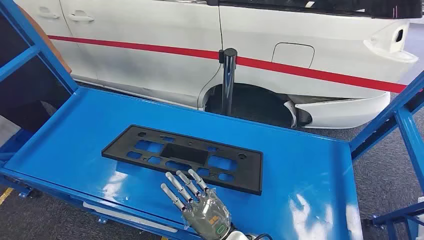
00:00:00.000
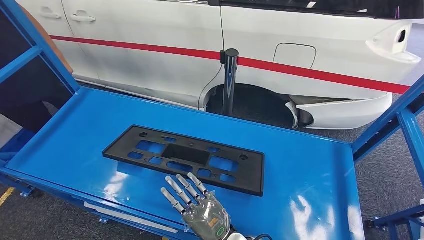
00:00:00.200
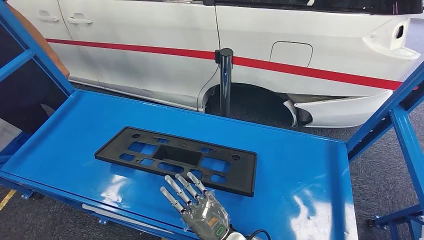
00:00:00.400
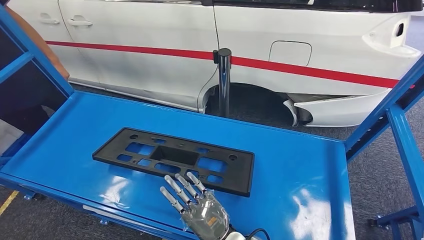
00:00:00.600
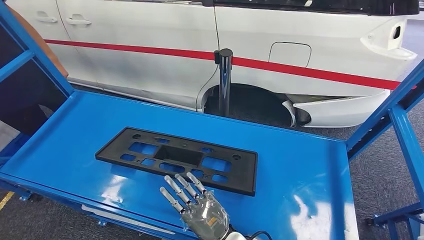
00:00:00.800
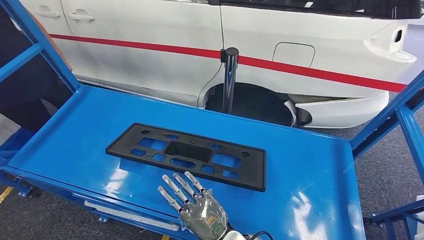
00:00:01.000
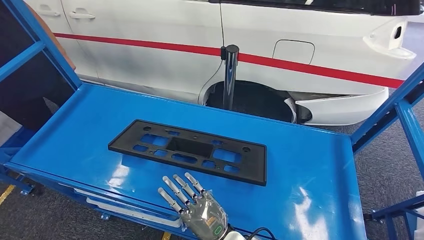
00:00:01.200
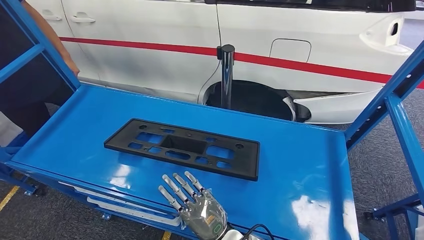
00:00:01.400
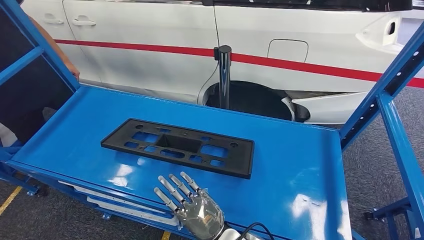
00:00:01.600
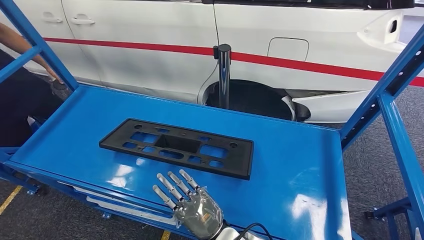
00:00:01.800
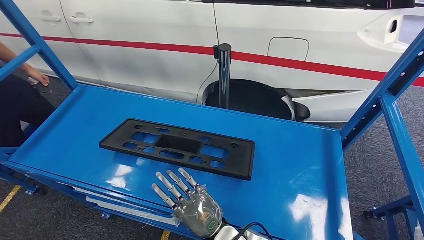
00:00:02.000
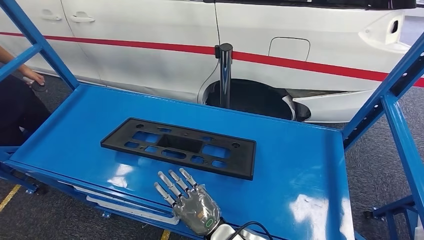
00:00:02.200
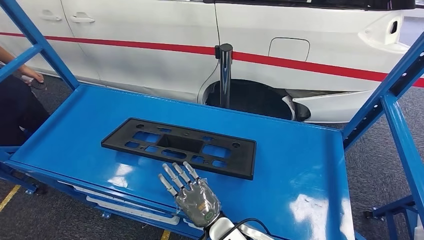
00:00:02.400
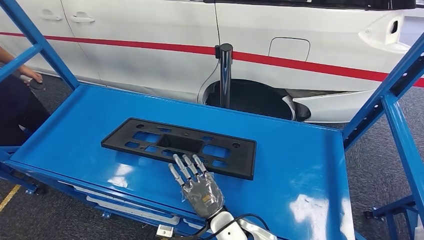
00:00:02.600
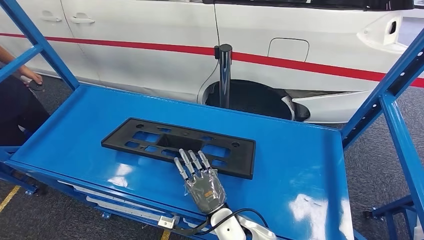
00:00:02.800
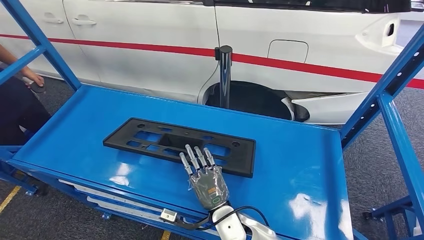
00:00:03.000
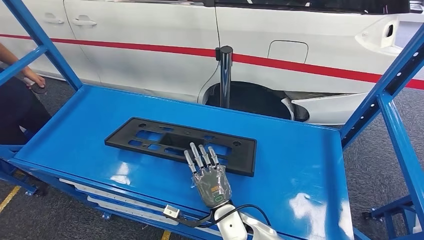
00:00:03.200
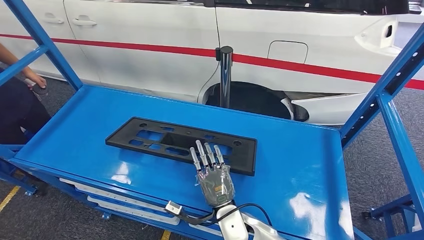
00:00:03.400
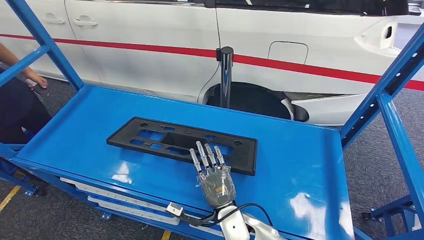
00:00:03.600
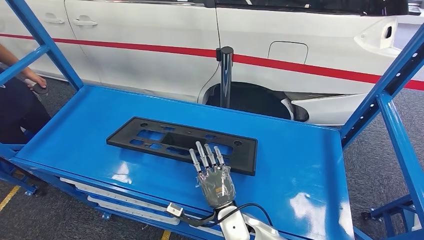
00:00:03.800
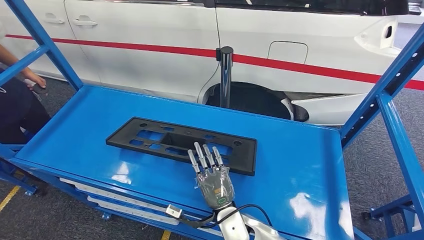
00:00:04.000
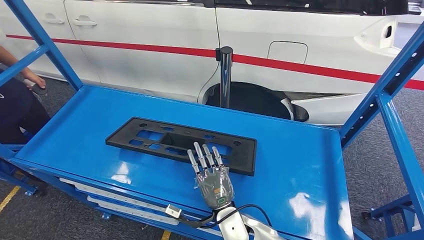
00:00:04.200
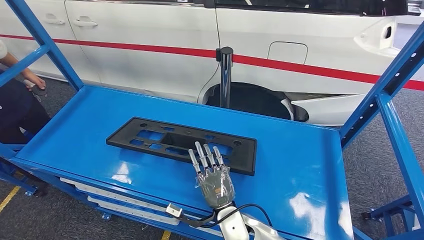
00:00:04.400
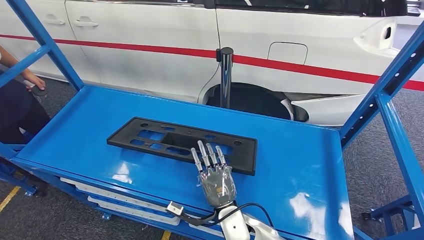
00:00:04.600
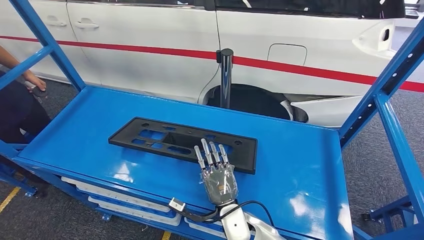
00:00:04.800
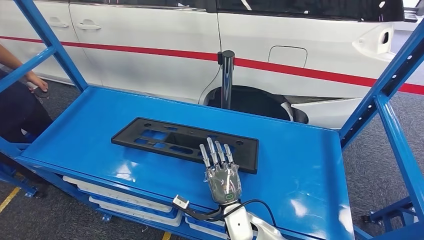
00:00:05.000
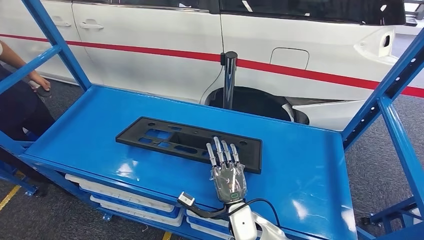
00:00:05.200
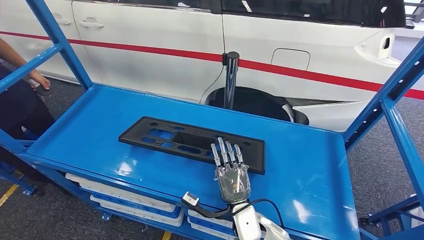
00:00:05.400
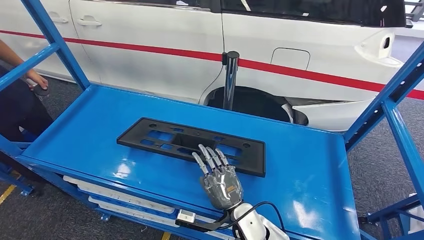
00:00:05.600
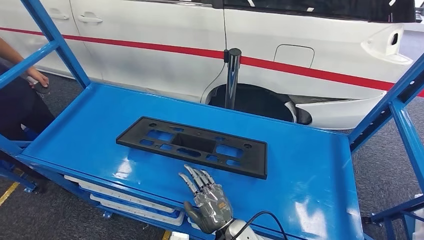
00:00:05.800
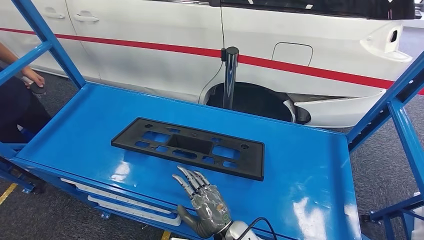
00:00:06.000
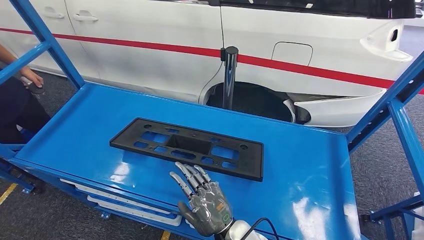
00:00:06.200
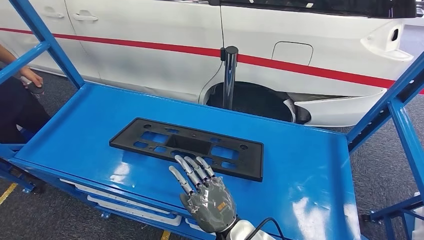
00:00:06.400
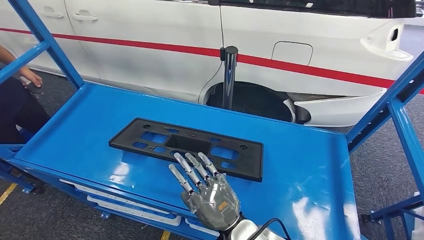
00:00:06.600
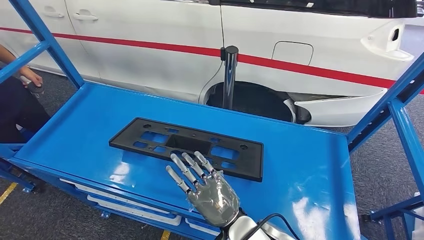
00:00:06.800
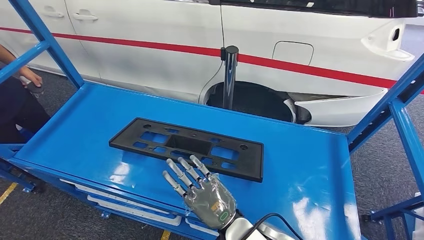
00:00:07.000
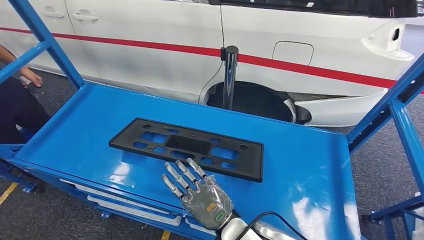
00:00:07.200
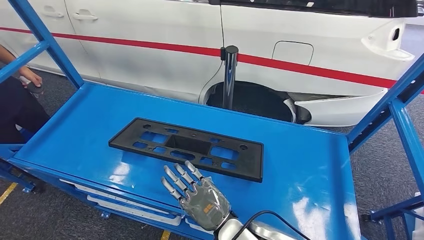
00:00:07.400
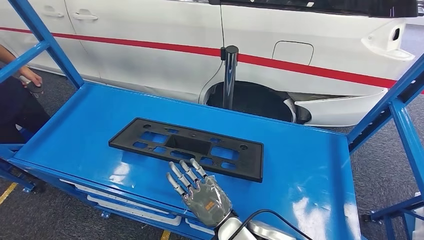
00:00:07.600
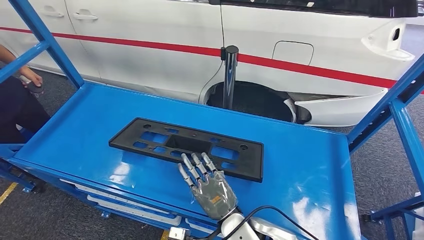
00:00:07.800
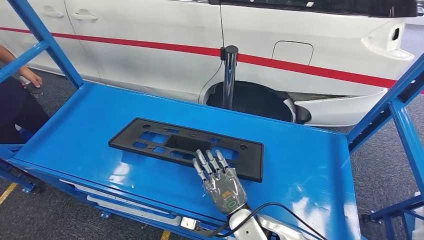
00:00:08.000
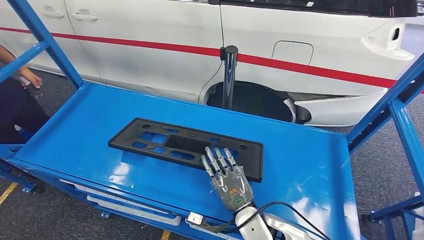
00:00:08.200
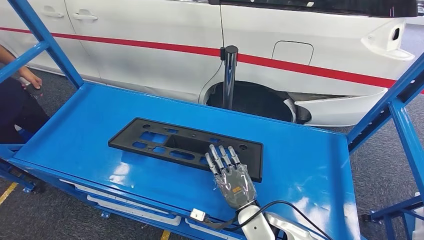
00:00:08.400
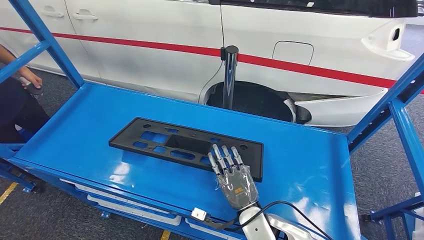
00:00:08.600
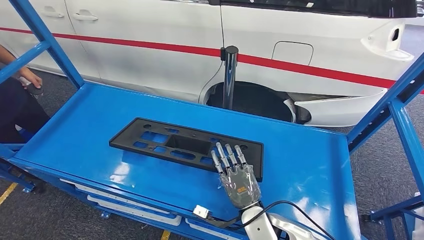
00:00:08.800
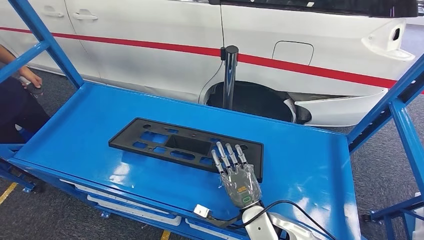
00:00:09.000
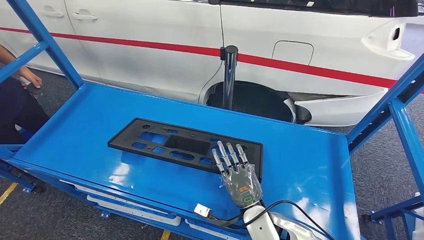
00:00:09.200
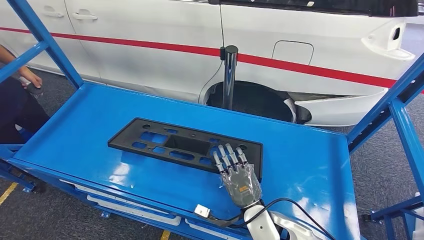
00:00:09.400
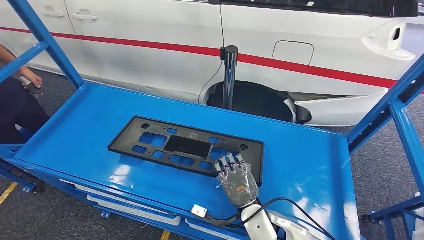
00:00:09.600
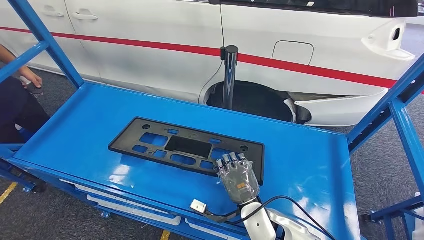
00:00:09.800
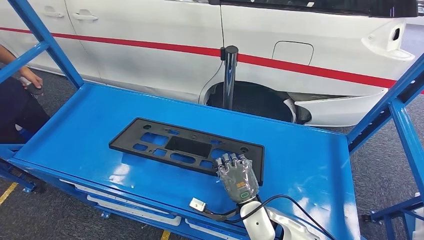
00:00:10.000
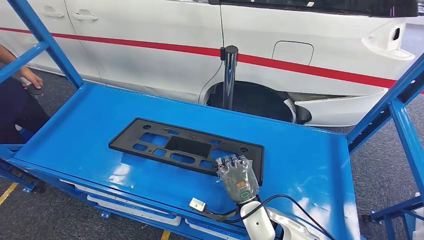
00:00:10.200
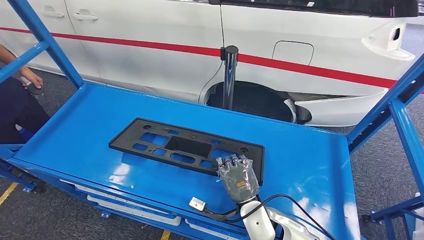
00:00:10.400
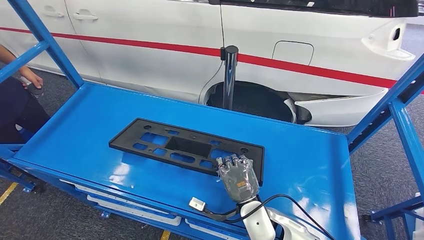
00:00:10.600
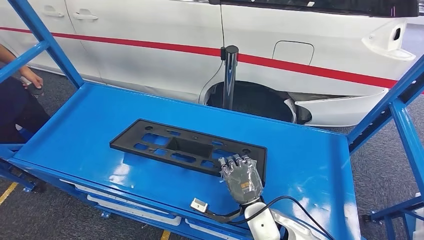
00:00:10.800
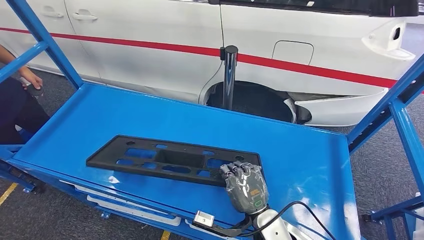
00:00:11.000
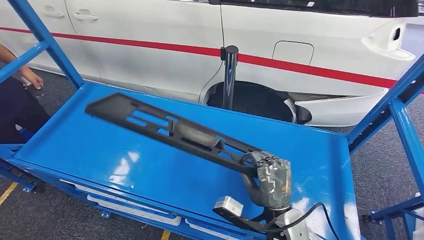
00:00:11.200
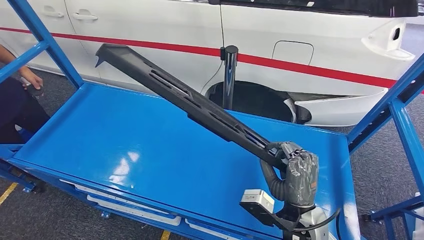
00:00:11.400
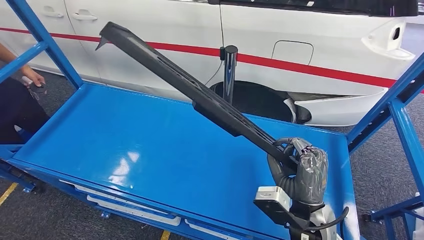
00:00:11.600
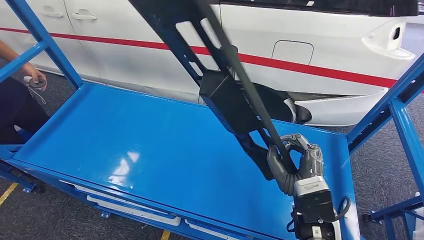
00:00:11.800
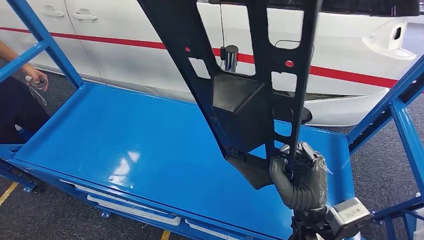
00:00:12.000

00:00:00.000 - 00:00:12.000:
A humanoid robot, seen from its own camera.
00:00:01.600 - 00:00:03.000: The right hand heads forward, covering roughly 5 cm.
00:00:03.000 - 00:00:04.400: The hands move only a little.
00:00:07.600 - 00:00:09.000: The right hand shifts by some 5 cm.
00:00:09.000 - 00:00:10.400: The hands move only a little.

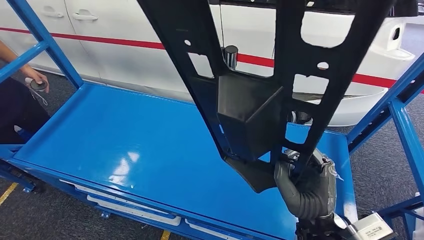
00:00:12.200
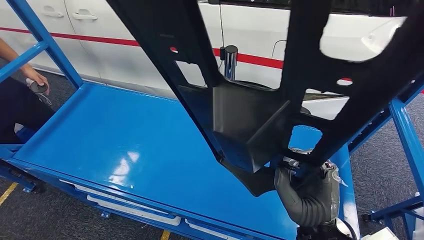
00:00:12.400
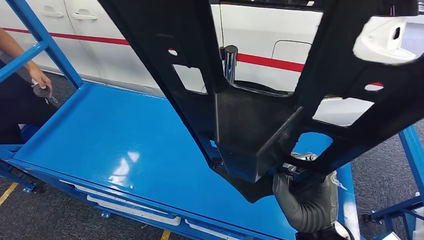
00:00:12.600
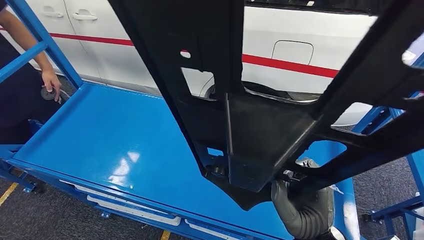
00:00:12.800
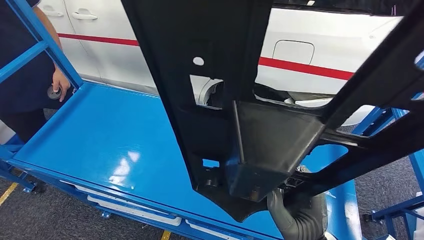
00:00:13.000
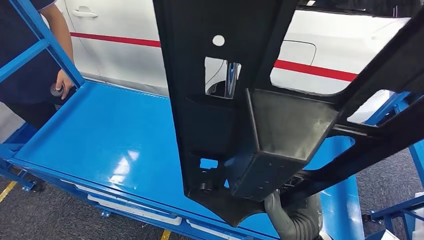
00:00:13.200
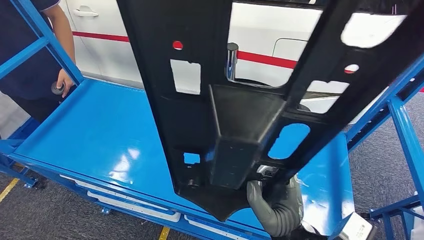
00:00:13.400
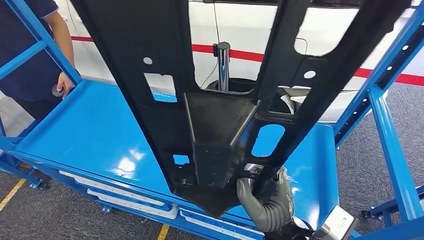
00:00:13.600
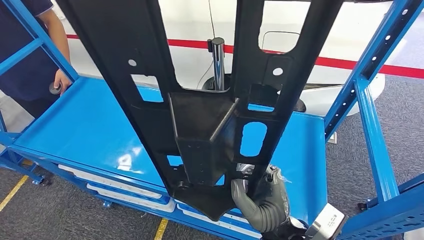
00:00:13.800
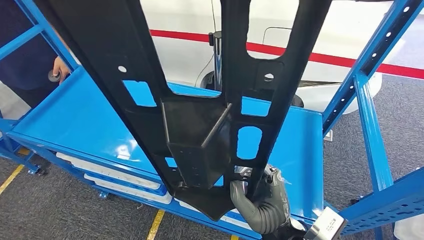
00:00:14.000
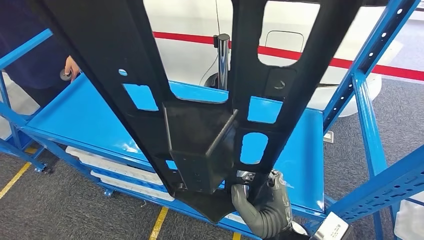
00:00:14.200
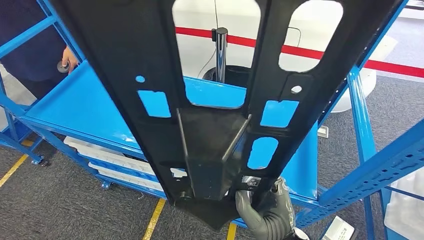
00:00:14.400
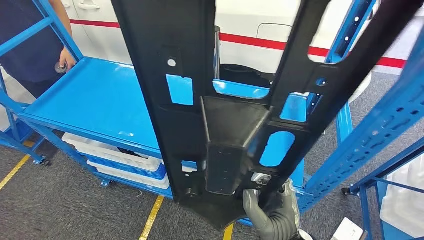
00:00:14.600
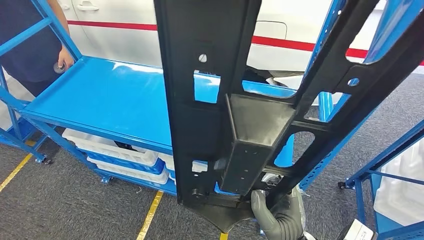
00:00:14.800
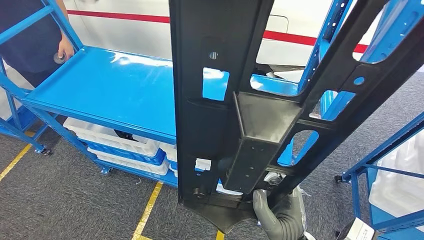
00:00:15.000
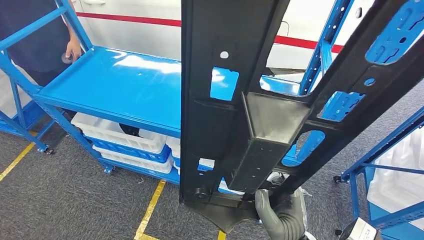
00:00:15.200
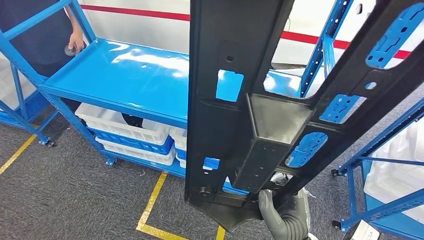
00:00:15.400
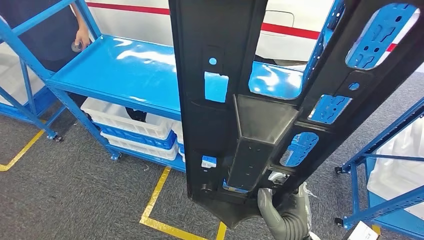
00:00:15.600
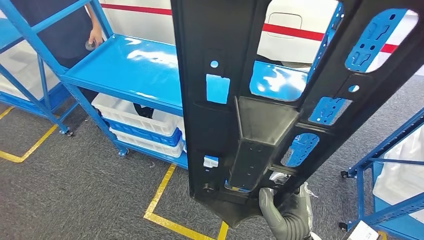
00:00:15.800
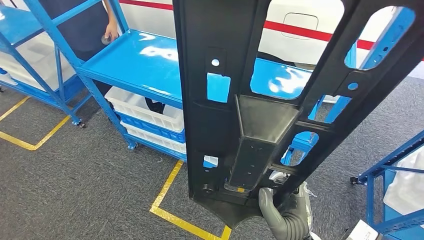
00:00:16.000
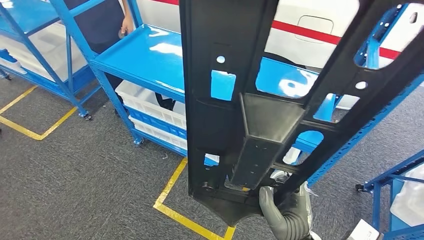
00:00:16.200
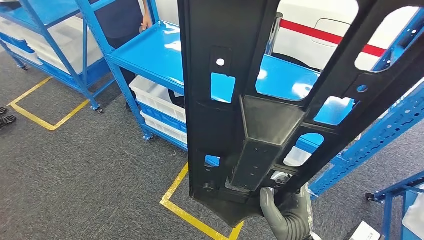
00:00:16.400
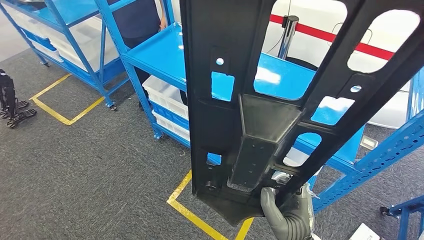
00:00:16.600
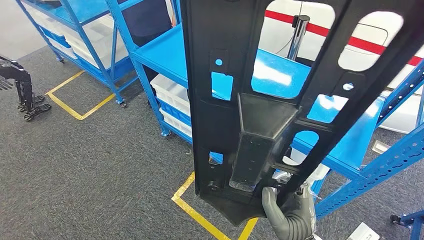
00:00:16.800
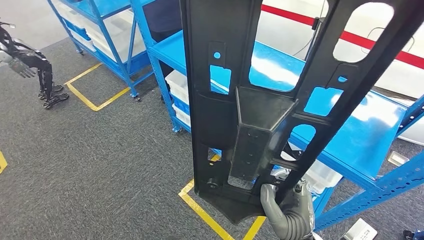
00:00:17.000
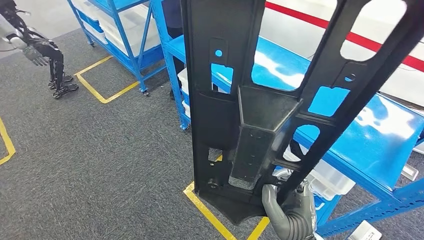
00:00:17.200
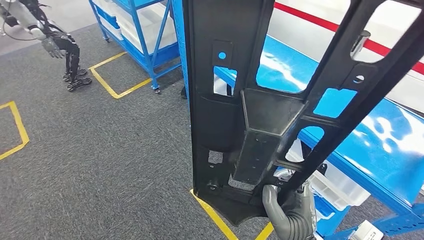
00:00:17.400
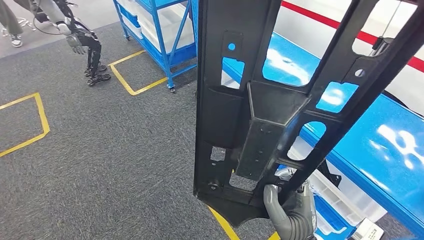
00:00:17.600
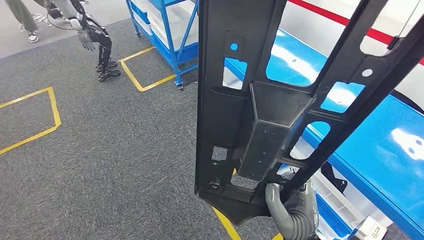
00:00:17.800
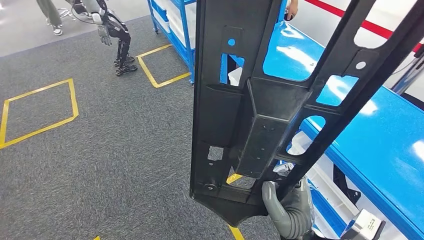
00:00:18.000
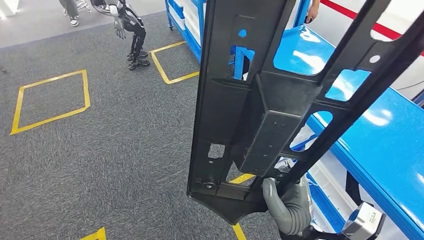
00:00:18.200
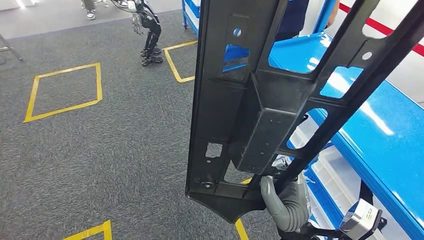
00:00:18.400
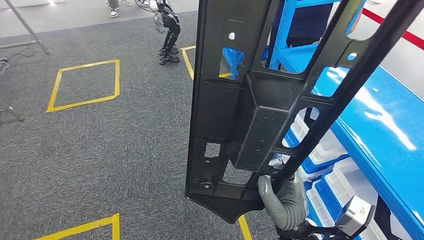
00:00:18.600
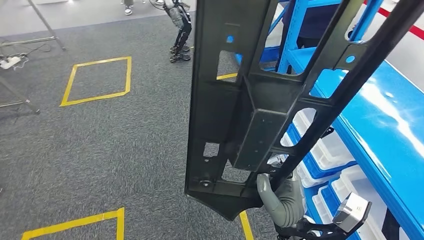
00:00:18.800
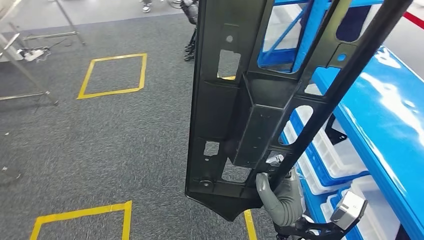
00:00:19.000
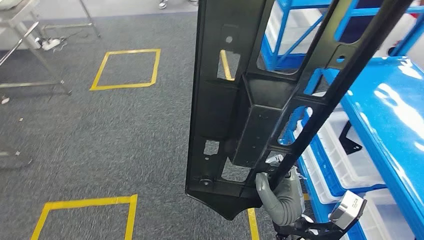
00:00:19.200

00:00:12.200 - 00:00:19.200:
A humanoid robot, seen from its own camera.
Step, 00:00:12.200 - 00:00:14.200: Pick up the large material from the shelf.
